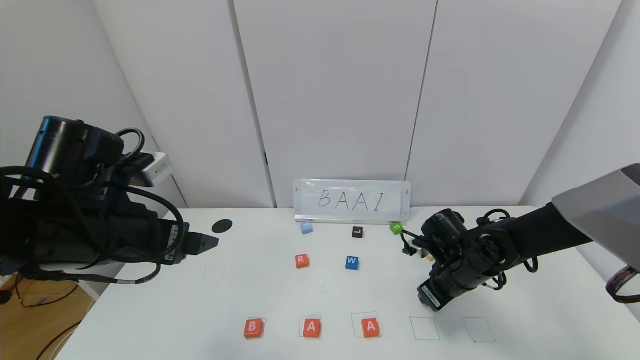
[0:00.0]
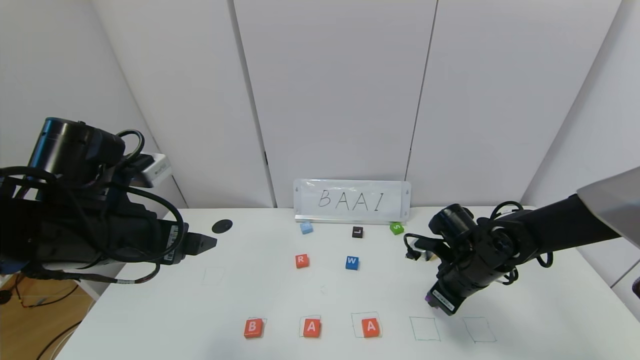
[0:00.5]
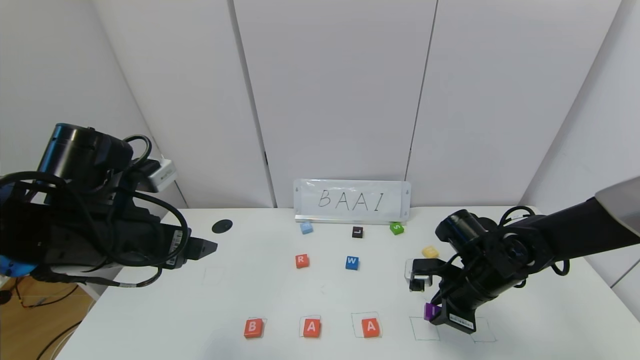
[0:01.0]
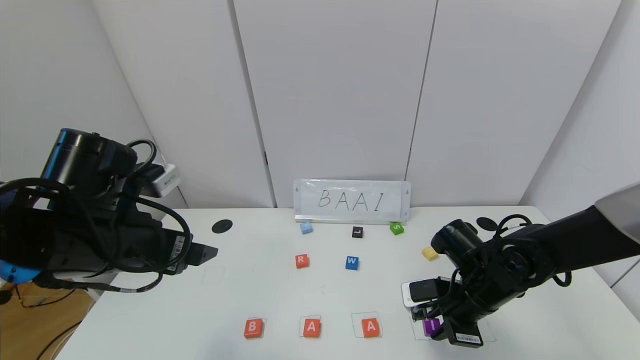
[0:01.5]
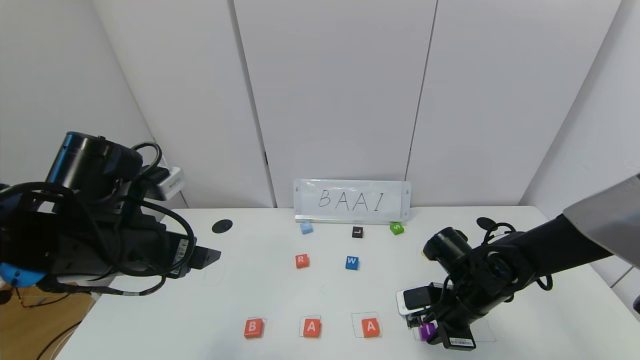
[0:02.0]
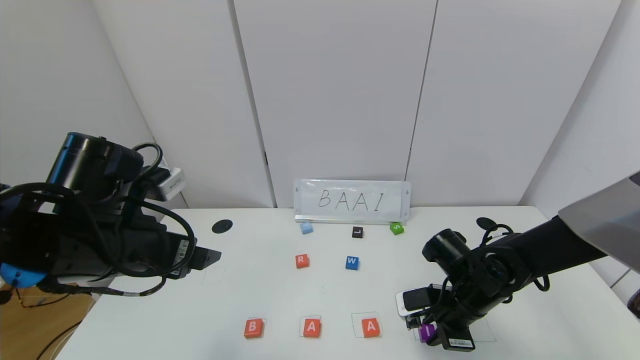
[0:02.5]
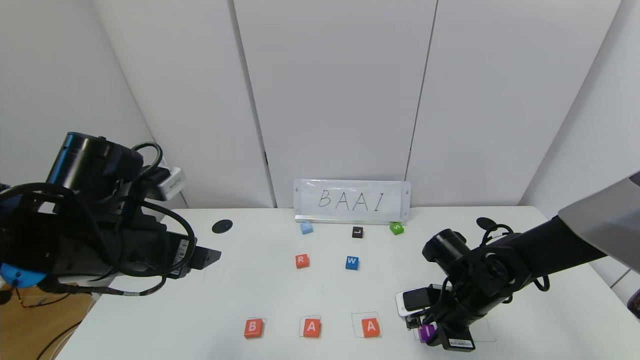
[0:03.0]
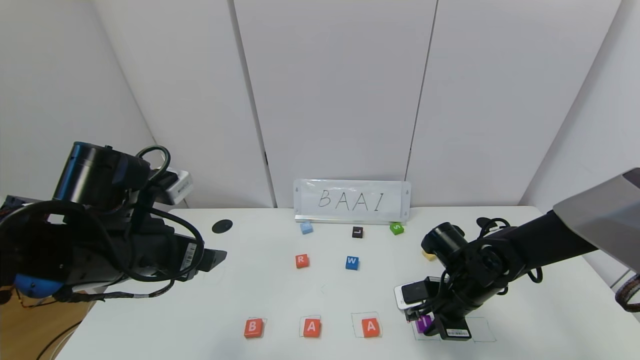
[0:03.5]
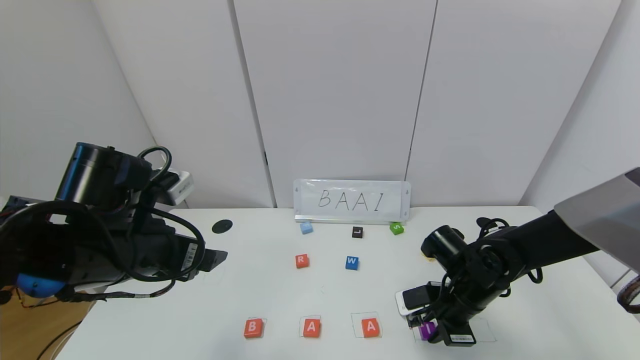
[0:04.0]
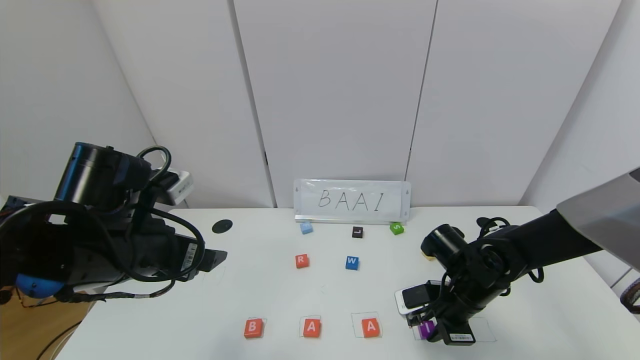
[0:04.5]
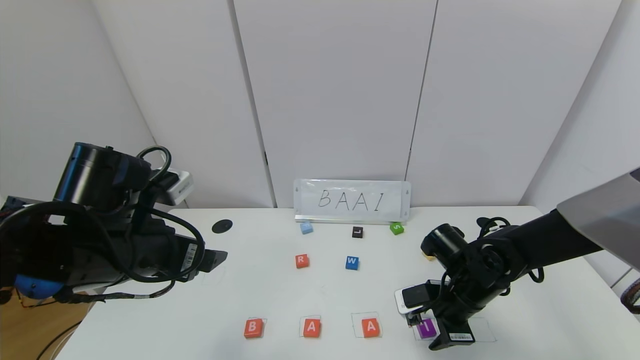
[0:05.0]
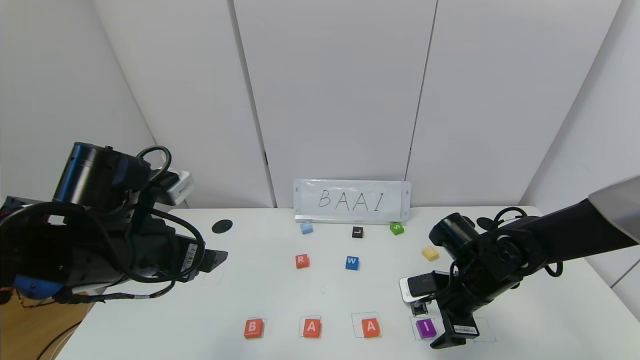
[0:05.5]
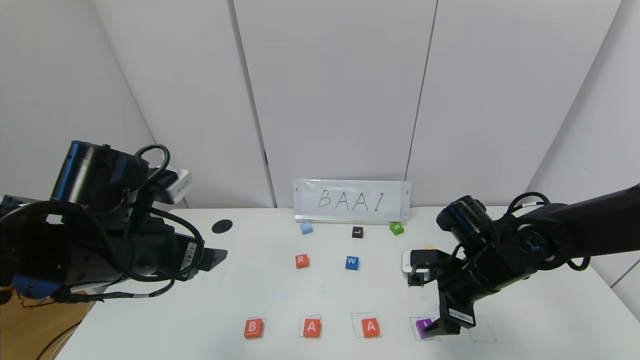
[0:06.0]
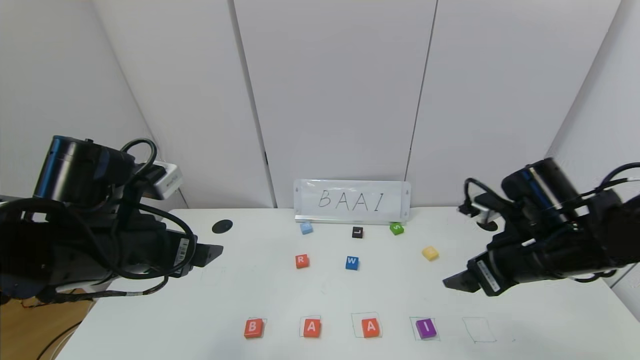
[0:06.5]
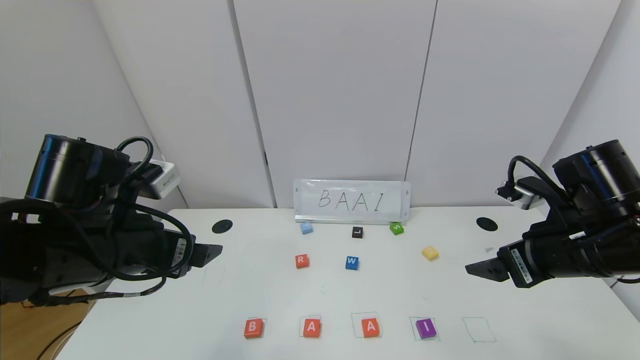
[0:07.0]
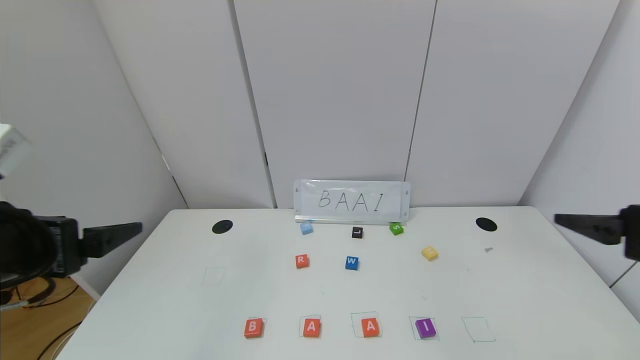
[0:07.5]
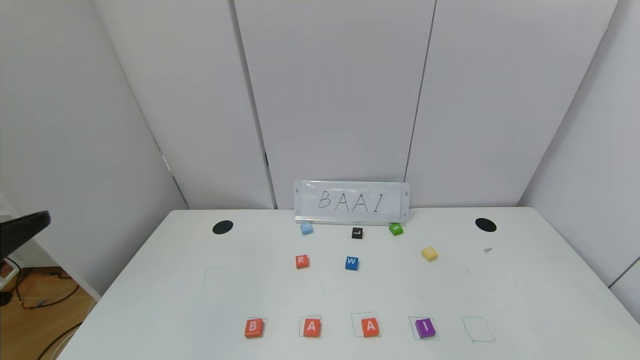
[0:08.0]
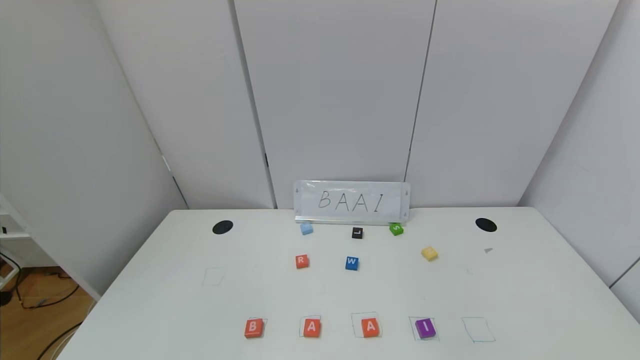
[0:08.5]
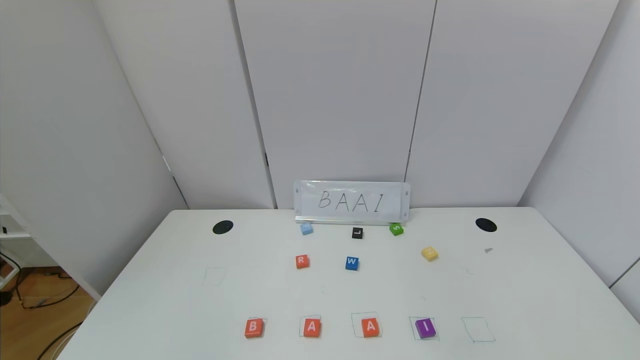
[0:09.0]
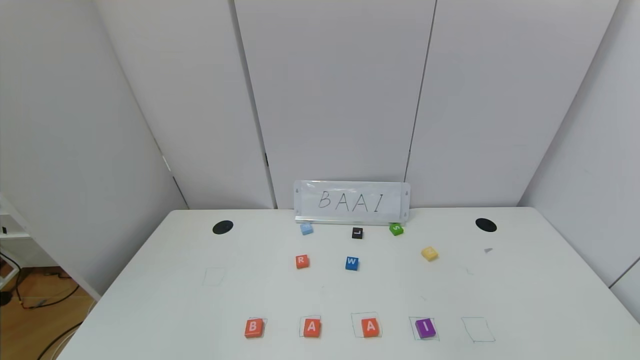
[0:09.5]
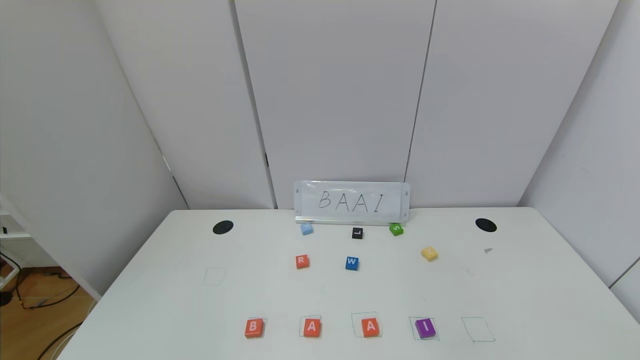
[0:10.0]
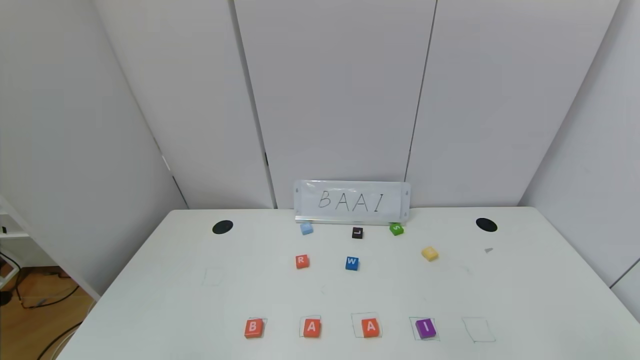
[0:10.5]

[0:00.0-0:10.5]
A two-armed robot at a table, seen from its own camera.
Task of the whole recording: use the gripper to find blocks with the letters b, a, a, and i on the table and arrange them into BAAI, then find r and N and turn the arranged baai into brian.
Step, 0:00.0 to 0:05.0: Place the block I in the fourth location.
0:02.0 to 0:04.0: The grippers move only a little.
0:04.0 to 0:06.5: The right gripper is displaced upward by approximately 15 cm, and opens.
0:06.5 to 0:08.5: The two grippers go approximately 30 cm backward.
